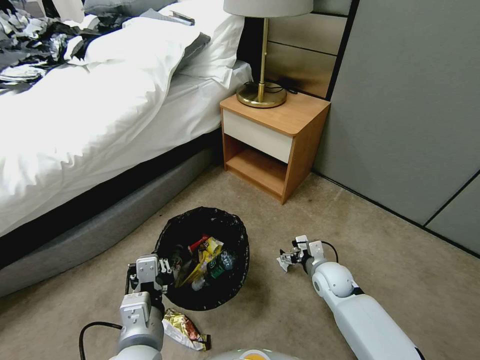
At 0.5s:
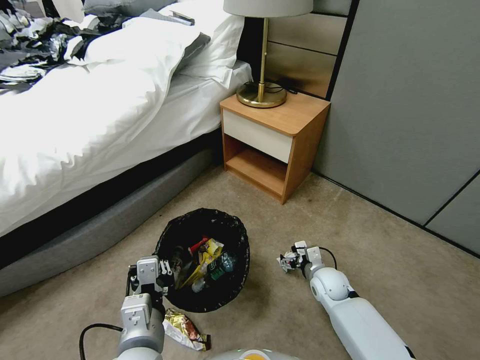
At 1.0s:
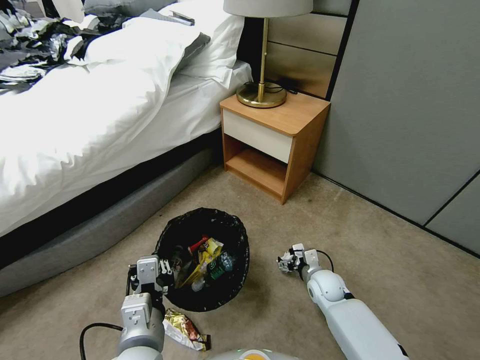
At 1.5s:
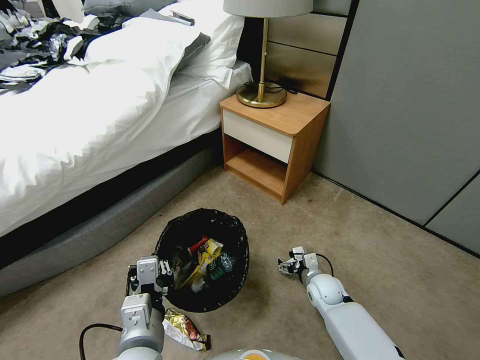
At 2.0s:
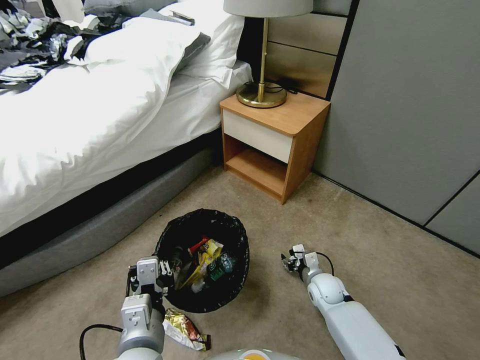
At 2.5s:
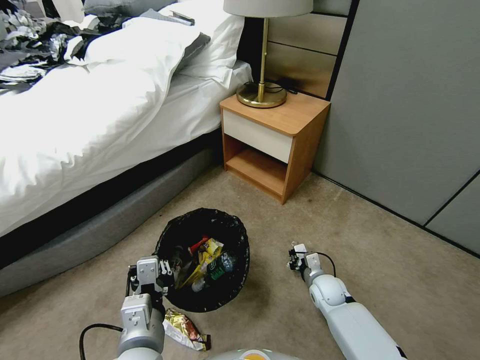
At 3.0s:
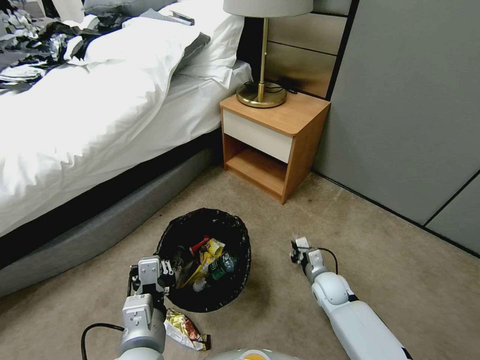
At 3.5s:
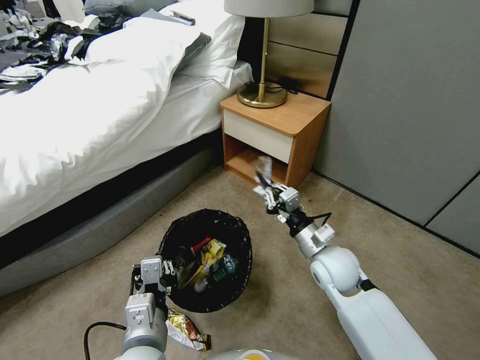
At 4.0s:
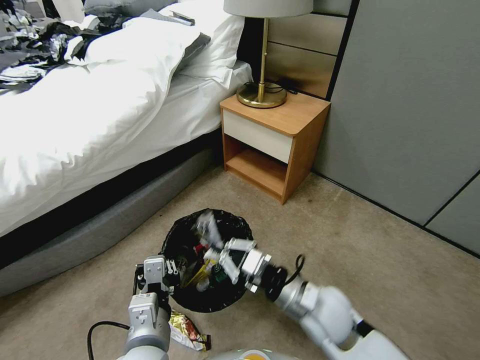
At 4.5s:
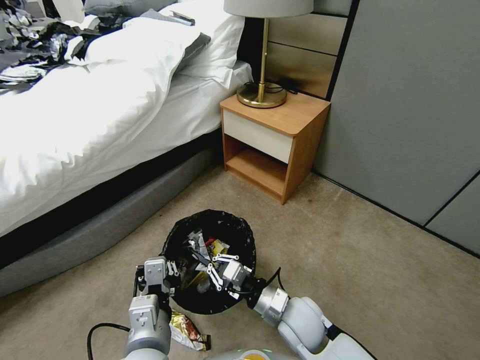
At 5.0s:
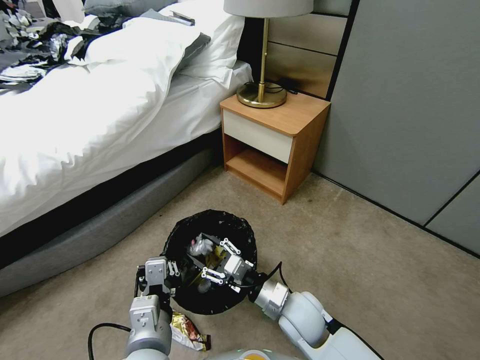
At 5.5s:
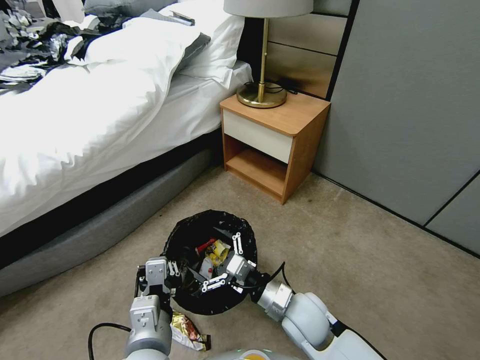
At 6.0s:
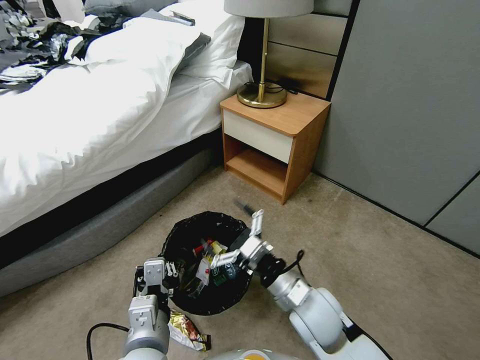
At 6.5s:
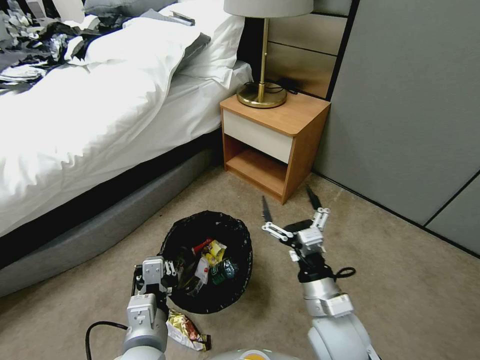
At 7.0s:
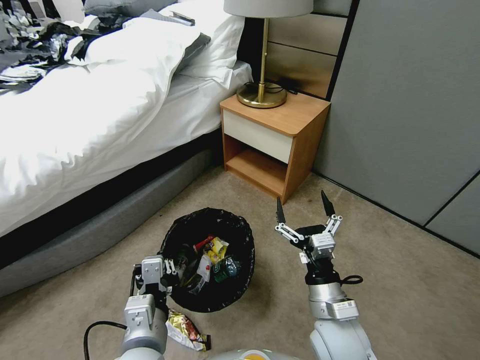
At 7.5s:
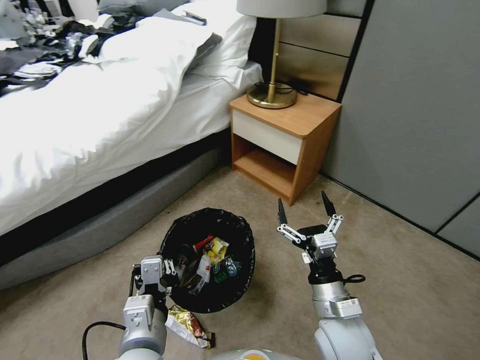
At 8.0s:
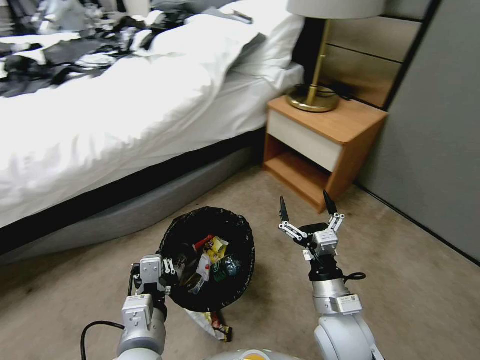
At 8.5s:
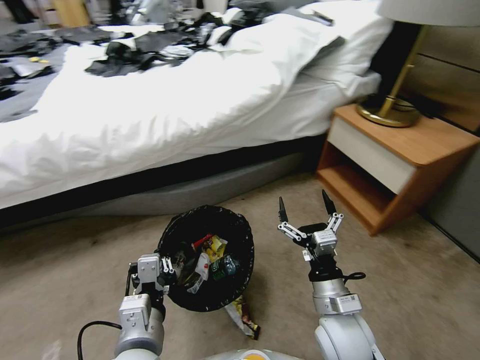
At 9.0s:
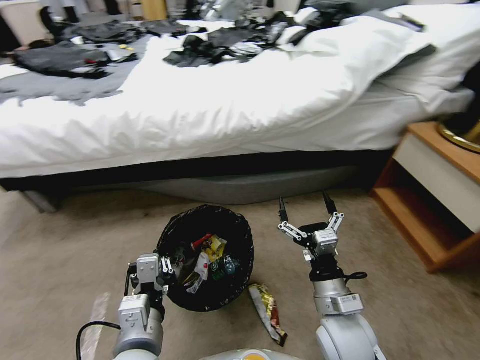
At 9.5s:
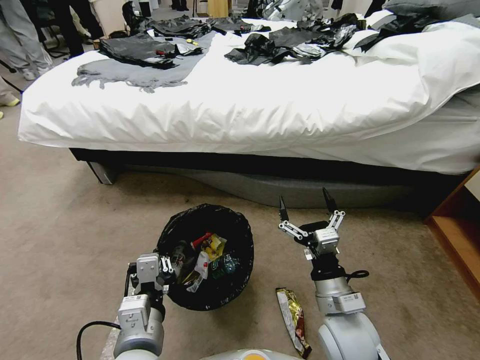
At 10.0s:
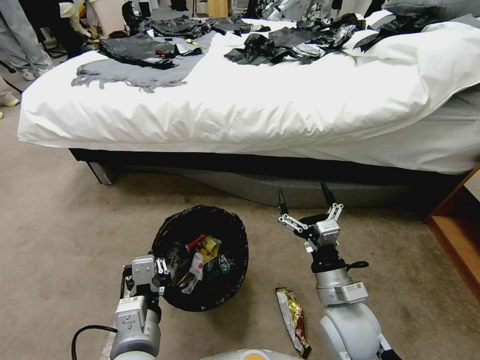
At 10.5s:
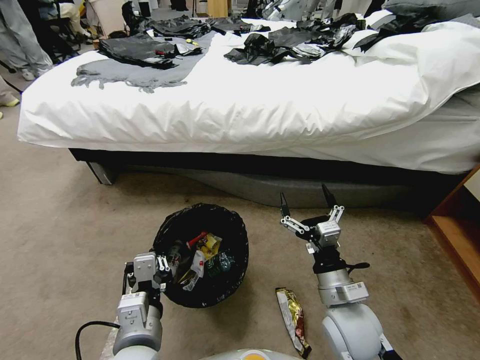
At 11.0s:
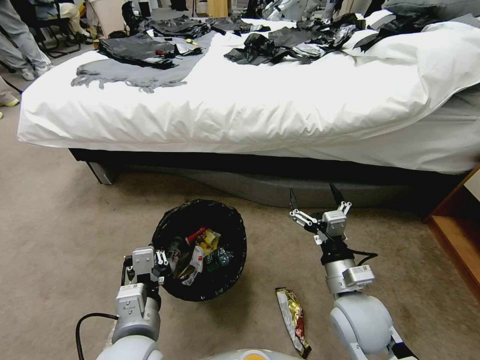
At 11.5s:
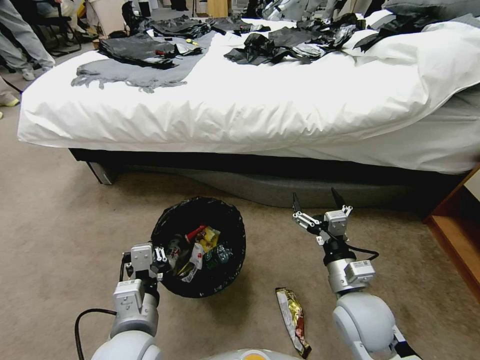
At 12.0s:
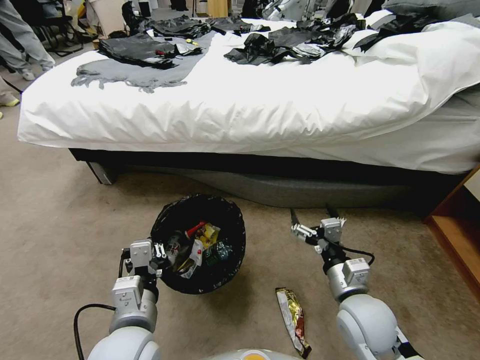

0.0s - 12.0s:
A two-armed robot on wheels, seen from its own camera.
Task of the whole recording: Pick up the trash bin, then pick up the garbage from the floor and place it into the trash bin.
0.0s - 2.0s: The right gripper is displaced downward by about 5 cm, and closes its fingers.
2.0s - 4.0s: The right gripper moves upward, backward and to the left, some 25 cm, and closes.
4.0s - 6.0s: The right gripper opens.
6.0s - 8.0s: The right gripper moves approximately 5 cm.

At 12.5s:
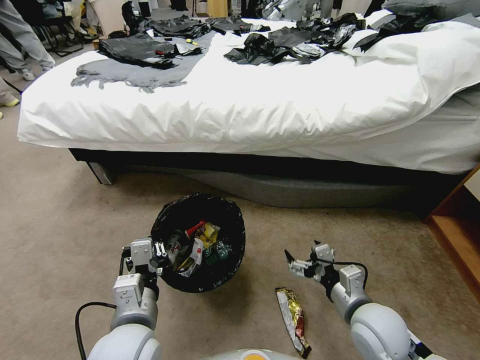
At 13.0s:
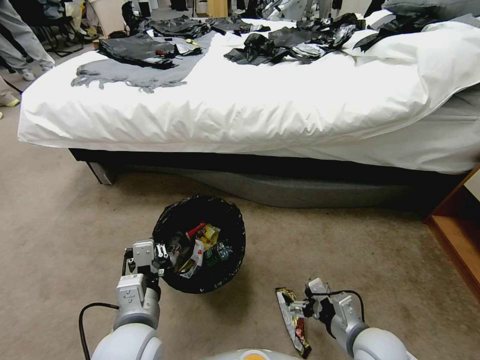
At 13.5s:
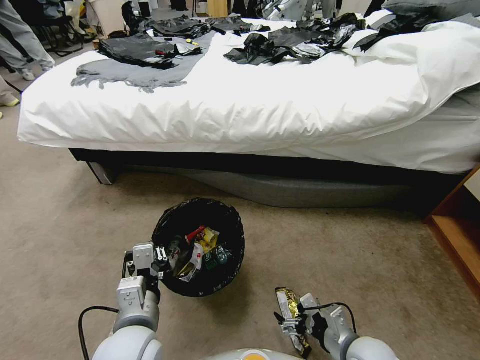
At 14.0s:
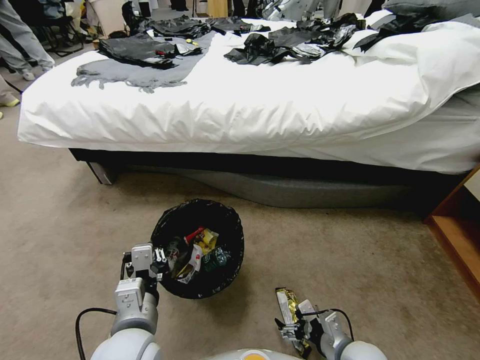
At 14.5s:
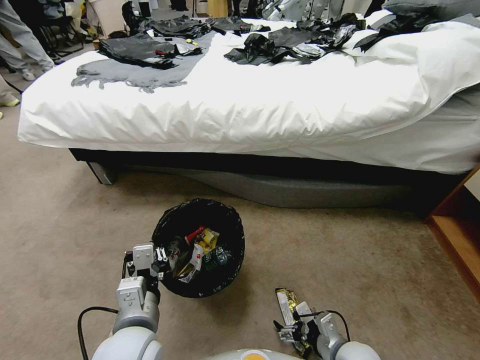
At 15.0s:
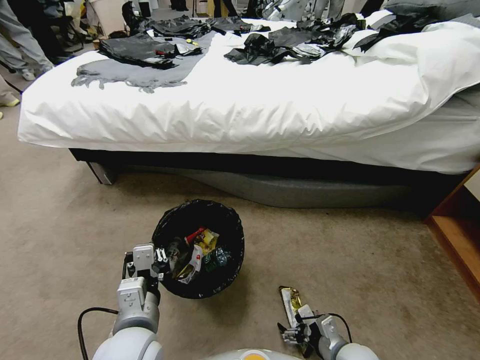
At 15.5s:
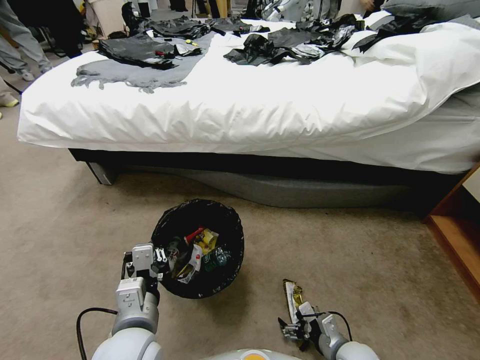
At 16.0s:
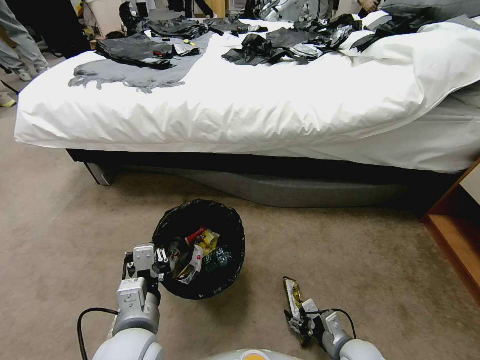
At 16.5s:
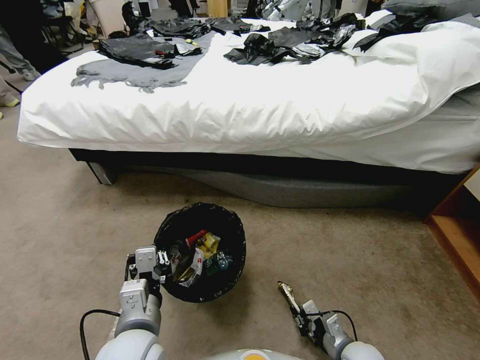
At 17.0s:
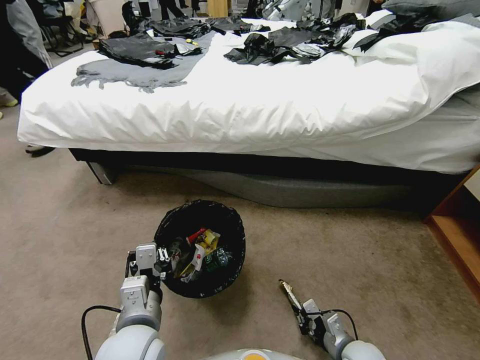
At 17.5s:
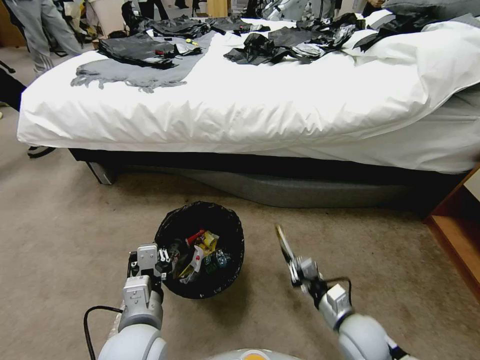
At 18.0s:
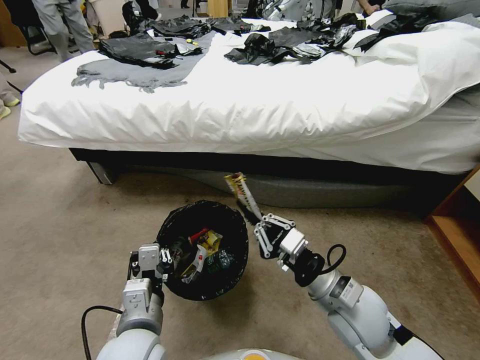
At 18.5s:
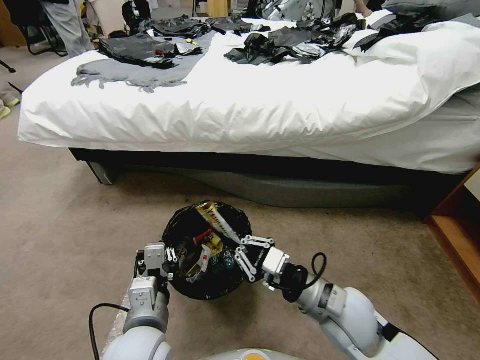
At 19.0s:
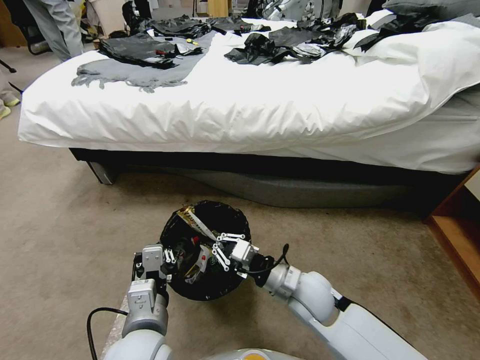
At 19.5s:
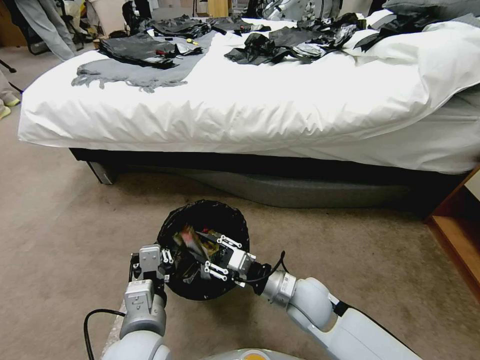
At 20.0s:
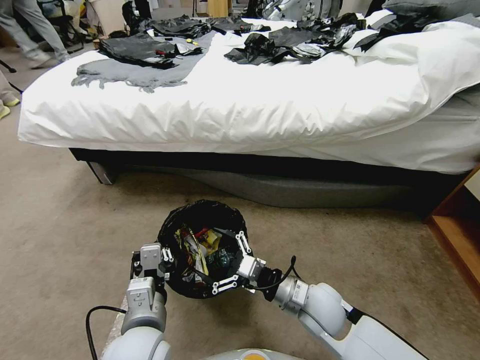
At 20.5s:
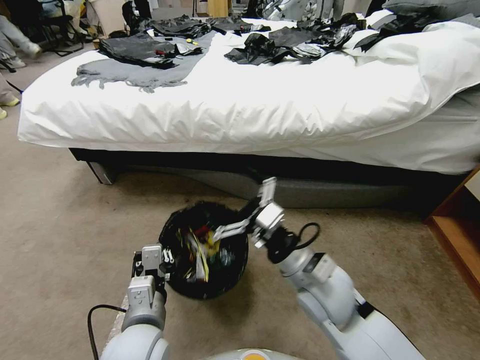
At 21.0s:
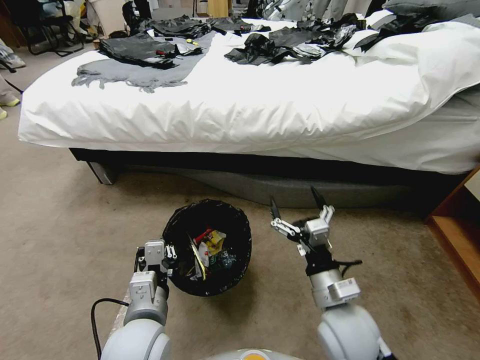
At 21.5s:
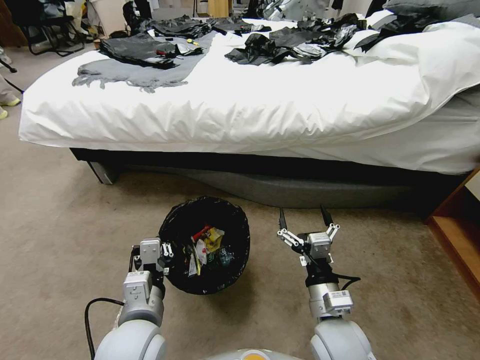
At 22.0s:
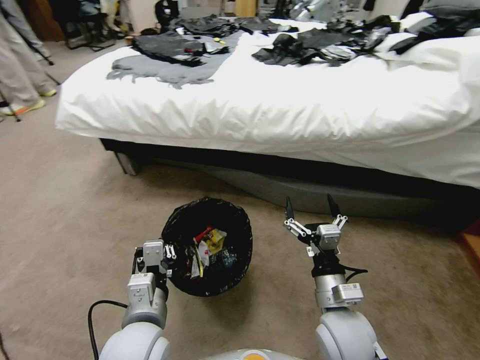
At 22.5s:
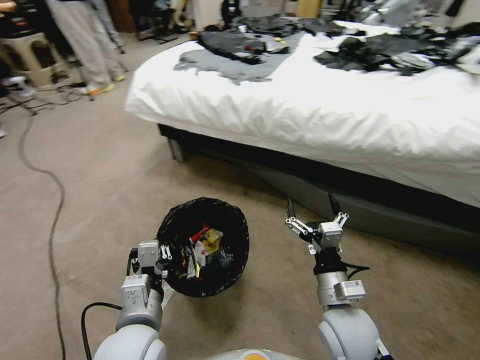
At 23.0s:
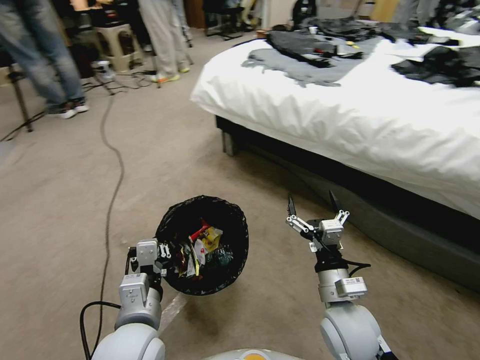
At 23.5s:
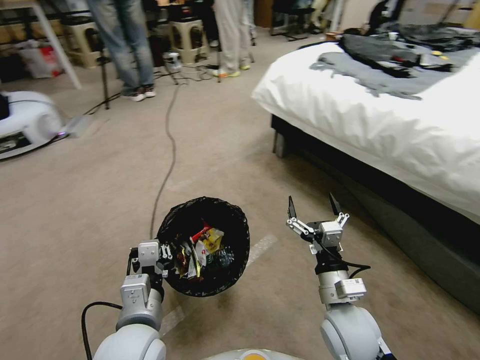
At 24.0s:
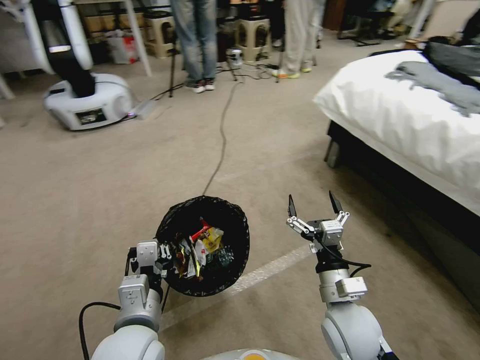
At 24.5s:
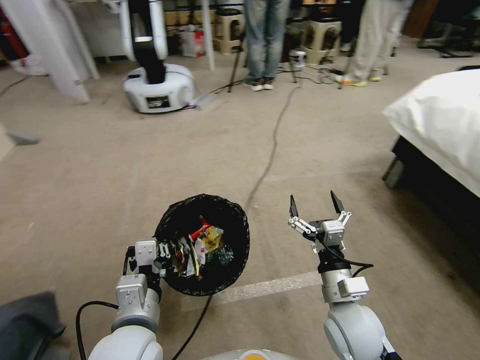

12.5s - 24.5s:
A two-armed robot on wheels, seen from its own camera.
Task of the whole recording: Pick up the trash bin, then pick up the garbage from the floor and place it into the trash bin.
12.5s - 14.5s: The right gripper goes approximately 15 cm downward.
14.5s - 16.5s: The right gripper closes up.
16.5s - 18.5s: The right gripper shifts some 25 cm upward and to the left.
18.5s - 20.5s: The right gripper changes place by some 5 cm, and opens.
20.5s - 22.5s: The right gripper heads downward, covering about 5 cm.

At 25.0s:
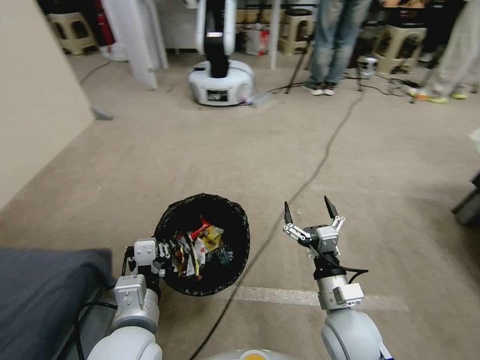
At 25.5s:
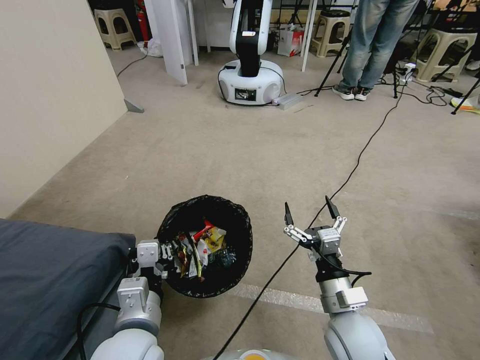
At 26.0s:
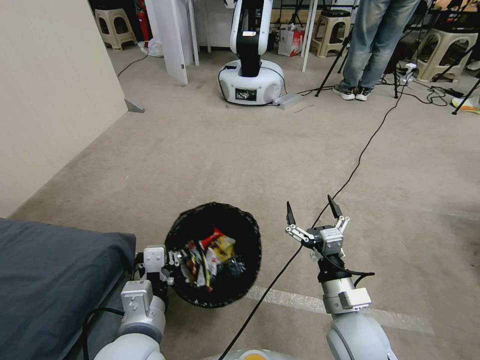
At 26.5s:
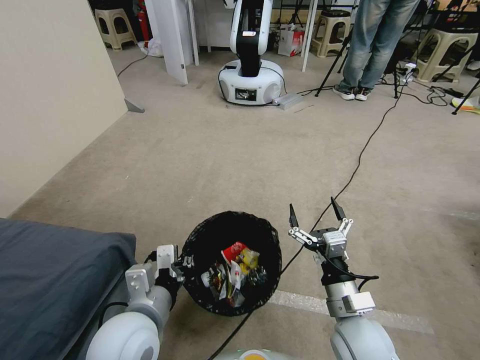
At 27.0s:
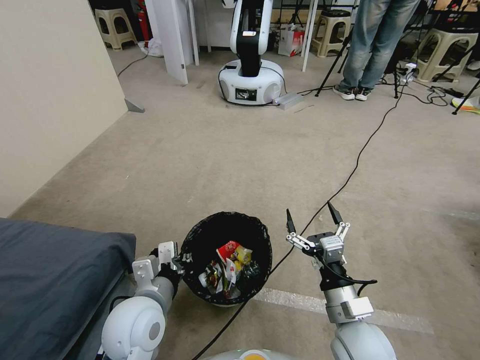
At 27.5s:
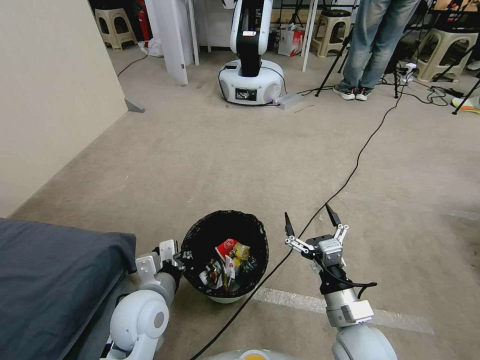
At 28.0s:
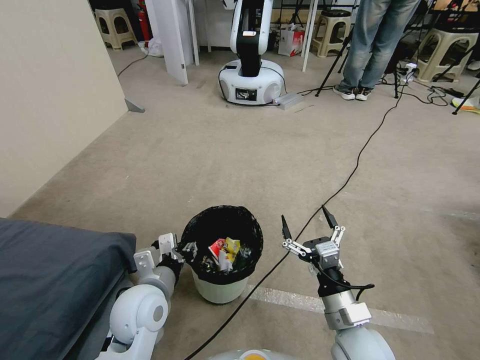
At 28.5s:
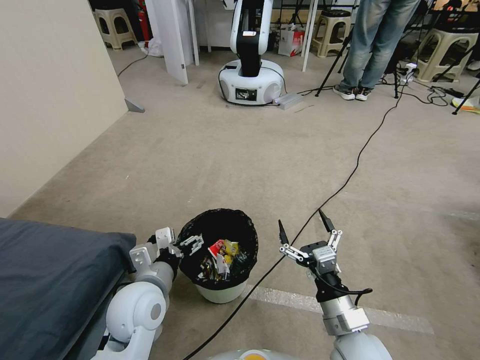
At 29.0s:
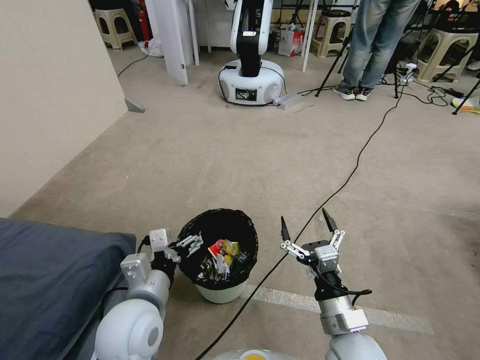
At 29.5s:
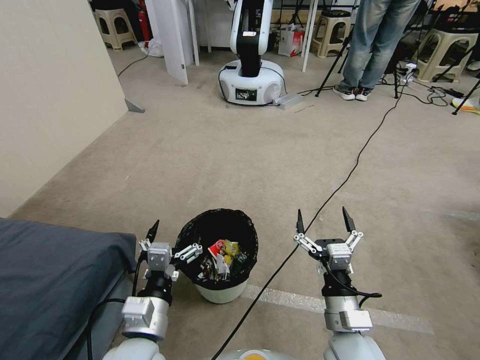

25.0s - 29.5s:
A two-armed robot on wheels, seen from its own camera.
Task of the whole recording: Pick up the trash bin, then pick up the garbage from the floor and place it into the trash bin.
25.0s - 27.0s: The left gripper is displaced forward by approximately 5 cm.
27.0s - 29.5s: The left gripper travels backward by some 5 cm, and opens.
